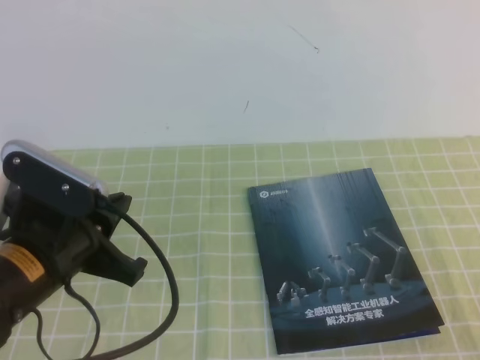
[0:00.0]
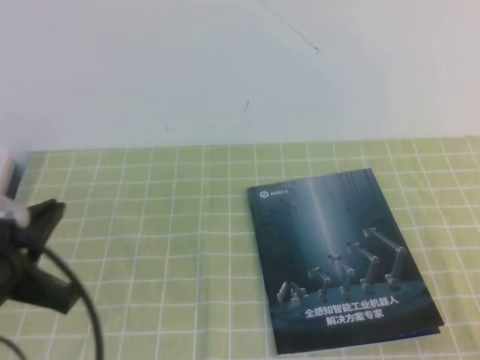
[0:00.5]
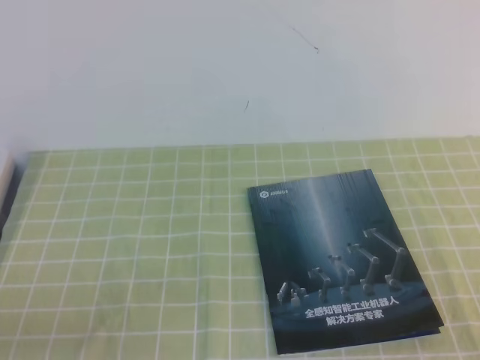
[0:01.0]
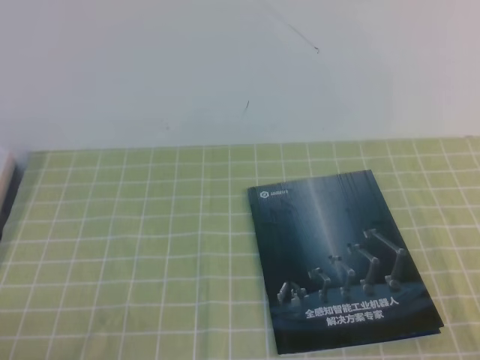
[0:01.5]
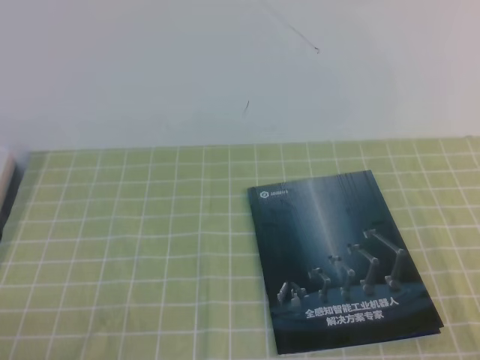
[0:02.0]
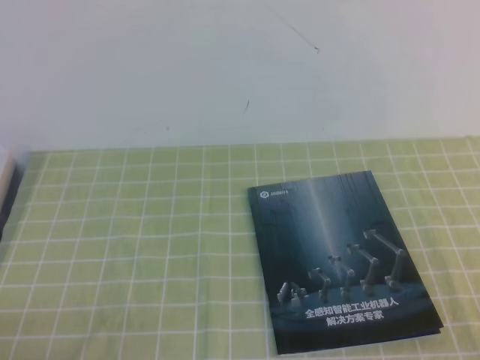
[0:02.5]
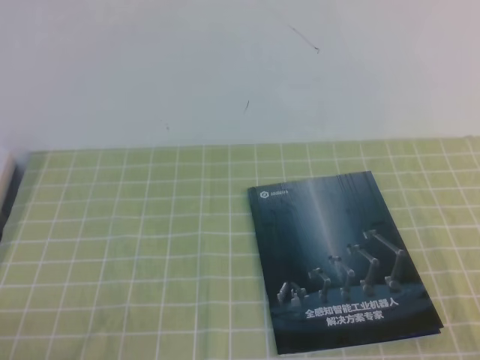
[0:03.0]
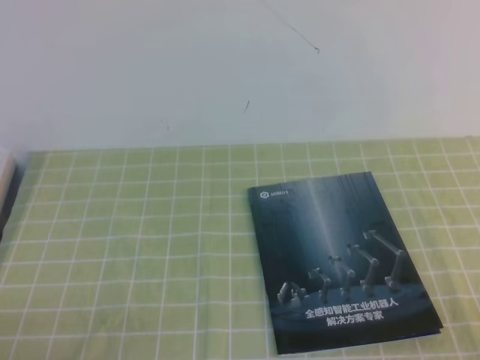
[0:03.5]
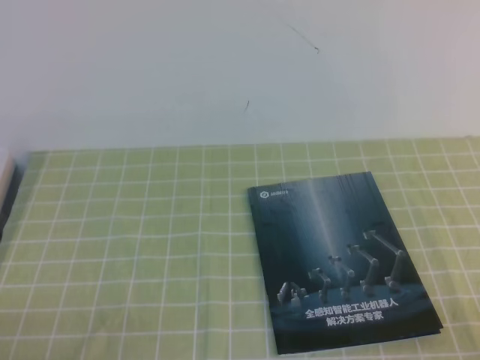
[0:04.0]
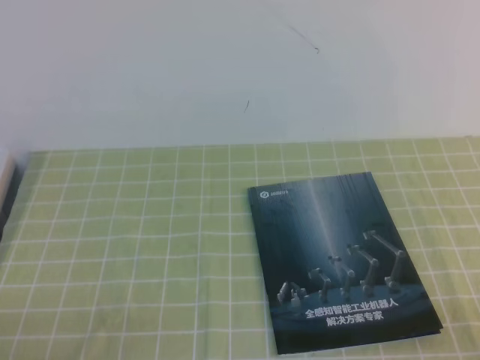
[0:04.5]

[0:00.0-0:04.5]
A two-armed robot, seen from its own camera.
Task of the whole recording: on the green tablecloth, hold the book with one hand and close it with the other.
Step, 0:00.0 to 0:04.5: Close the open book.
0:00.0 to 0:02.0: The left gripper travels backward, to the left and downward by about 20 cm.

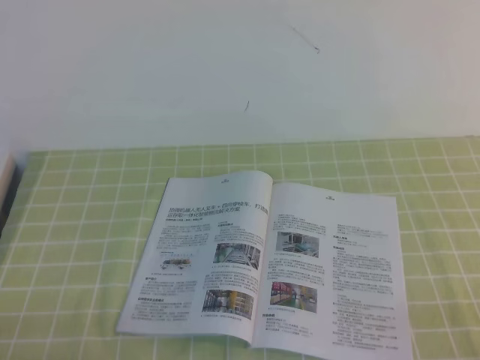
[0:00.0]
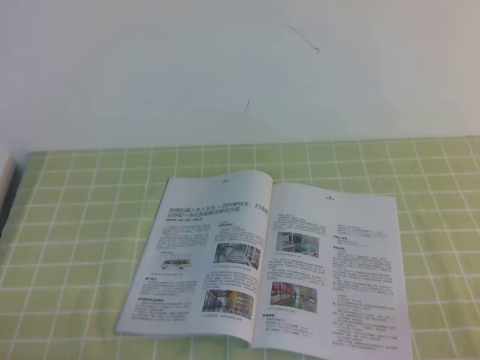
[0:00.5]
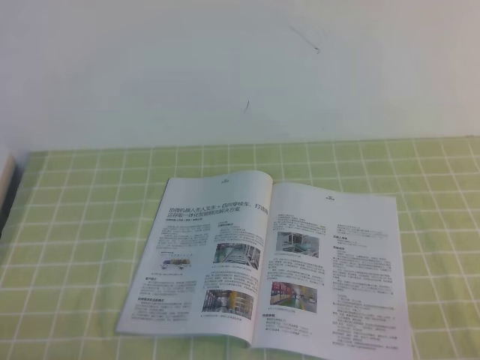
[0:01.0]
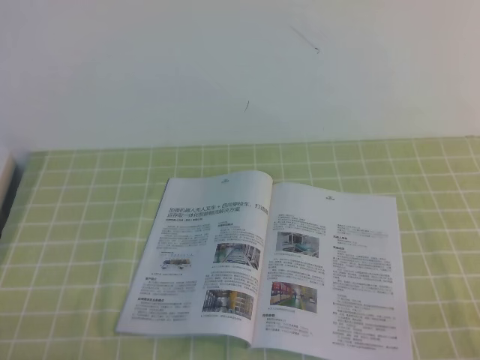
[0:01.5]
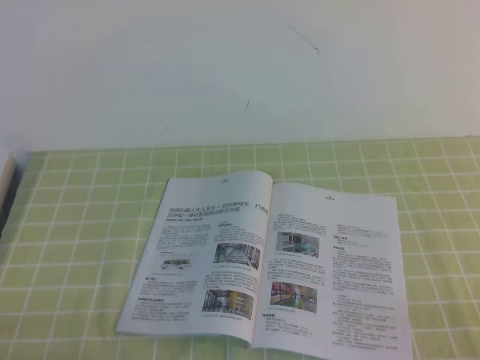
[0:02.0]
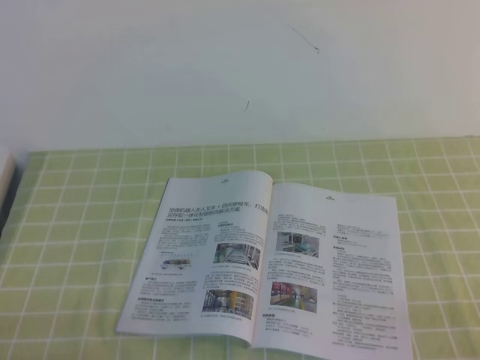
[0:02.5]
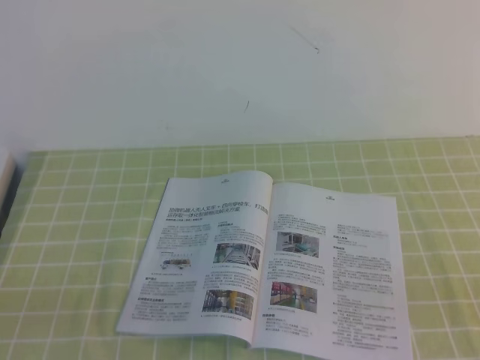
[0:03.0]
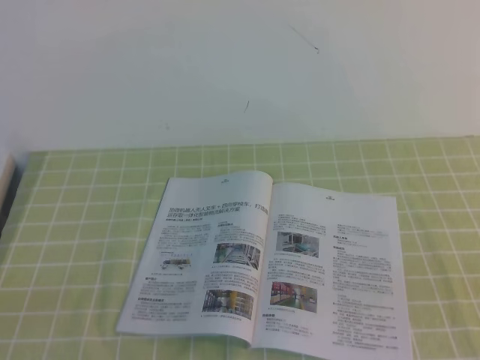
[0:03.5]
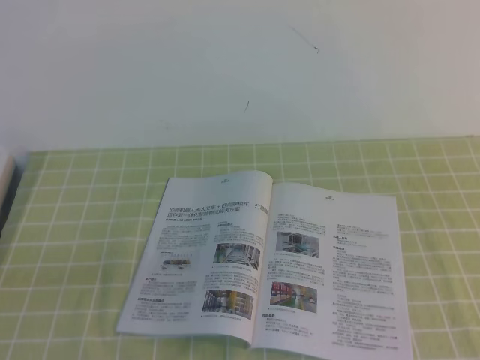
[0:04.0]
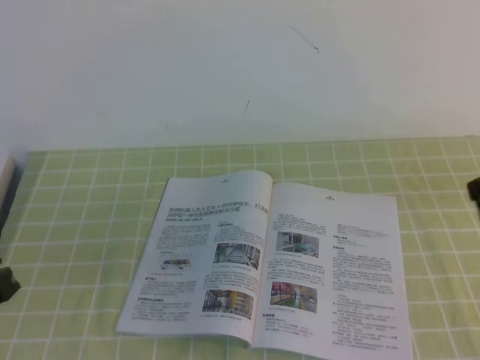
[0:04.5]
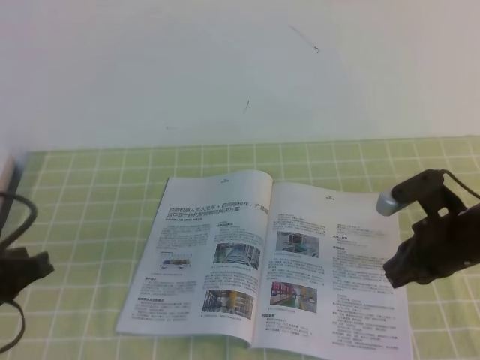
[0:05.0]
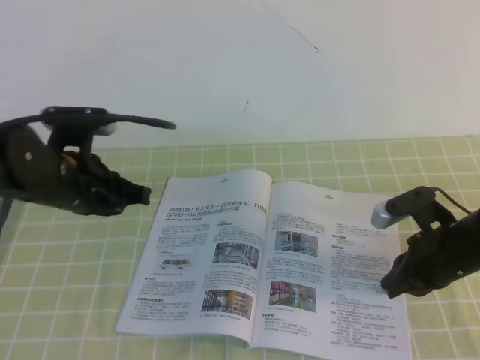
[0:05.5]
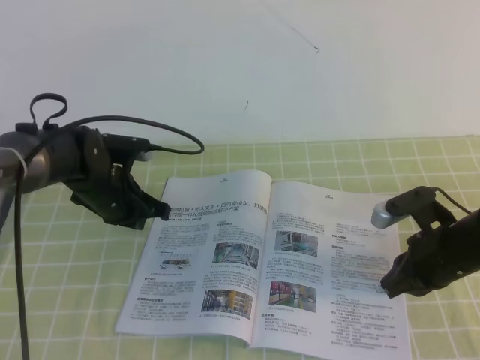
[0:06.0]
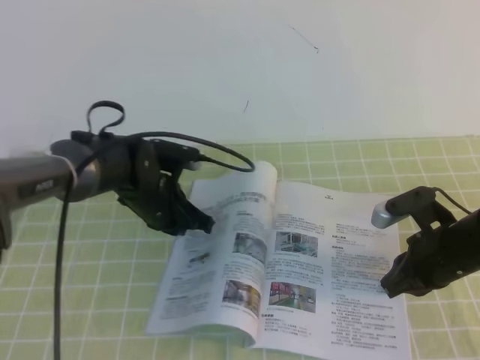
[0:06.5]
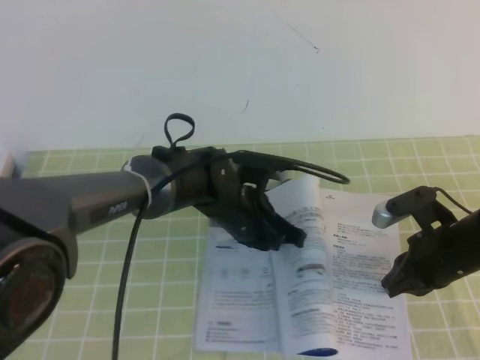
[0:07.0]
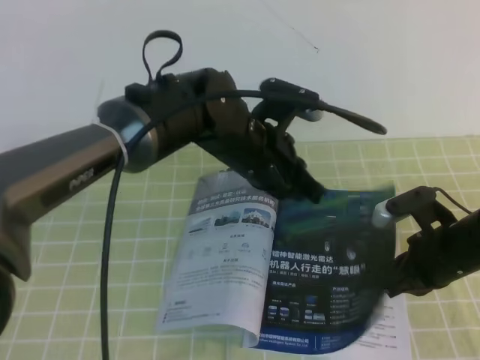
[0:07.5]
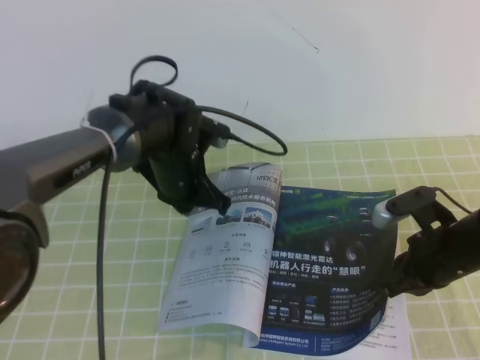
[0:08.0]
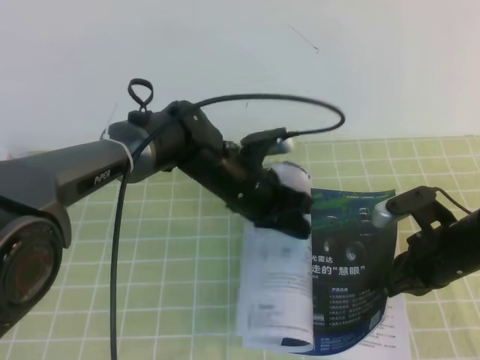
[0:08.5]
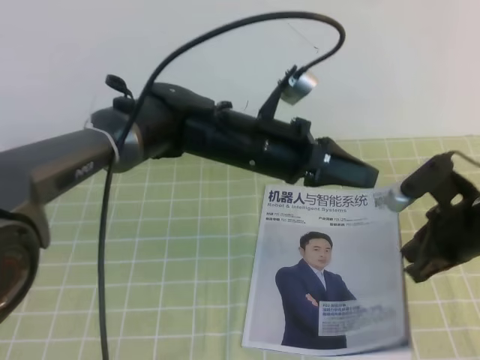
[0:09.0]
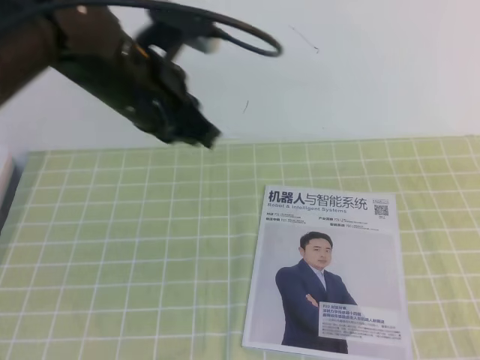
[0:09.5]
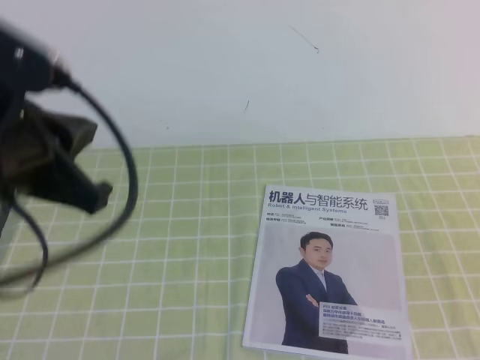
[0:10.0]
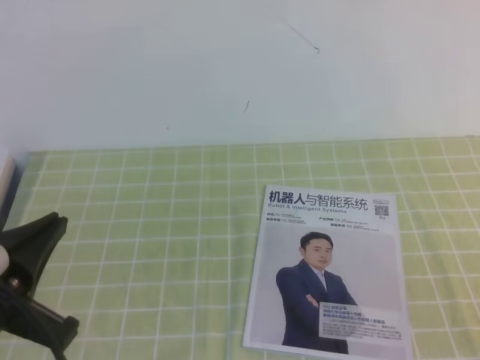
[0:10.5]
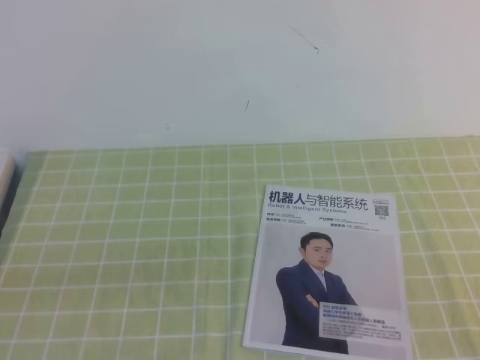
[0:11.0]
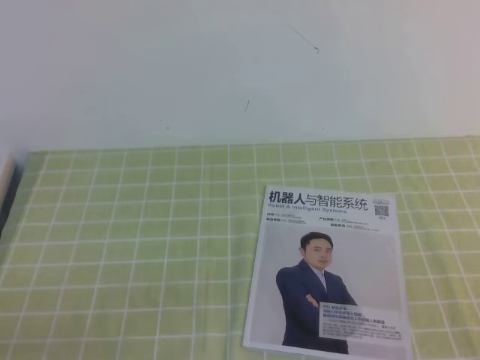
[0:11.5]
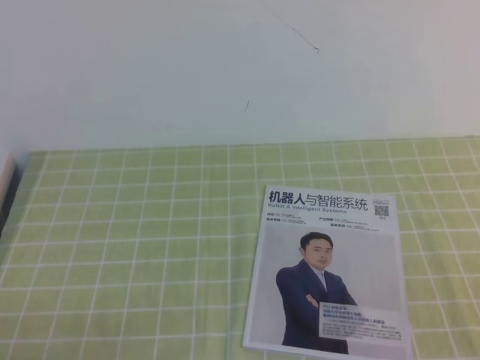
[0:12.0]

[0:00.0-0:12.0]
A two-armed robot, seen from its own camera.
Task of the whole recording: on the green tablecloth, hold the book with one hand and close it with the other.
0:00.0 to 0:02.0: Both grippers stay about where they are.
0:04.0 to 0:06.0: The right gripper is displaced downward and forward by approximately 30 cm, while the left gripper shifts some 35 cm forward.
0:06.0 to 0:08.0: The left gripper moves to the right, roughly 10 cm.
0:08.0 to 0:10.0: The right gripper heads backward and upward, covering roughly 25 cm. The left gripper moves backward, upward and to the left, about 25 cm.
0:10.0 to 0:12.0: The left gripper shifts approximately 30 cm downward, backward and to the left. The right gripper heads downward and backward, covering roughly 10 cm.

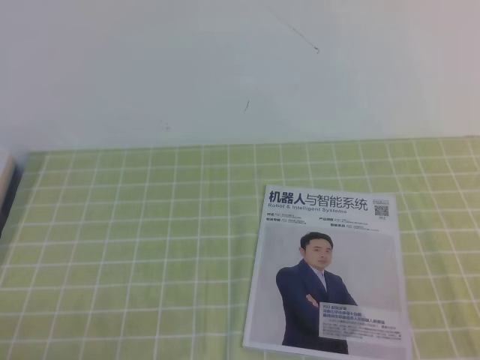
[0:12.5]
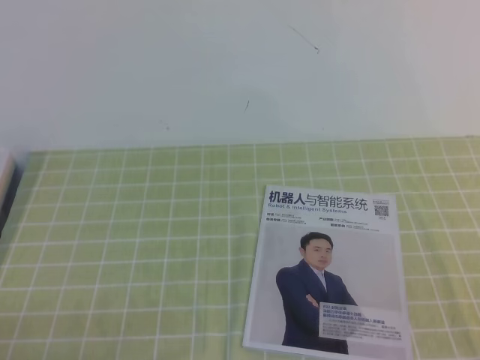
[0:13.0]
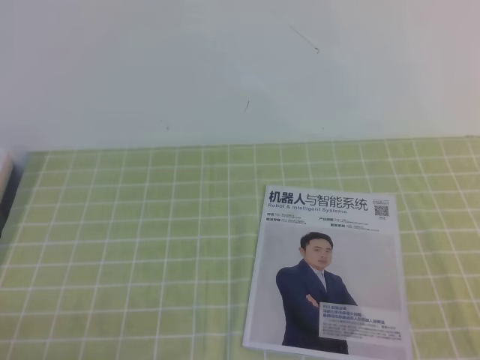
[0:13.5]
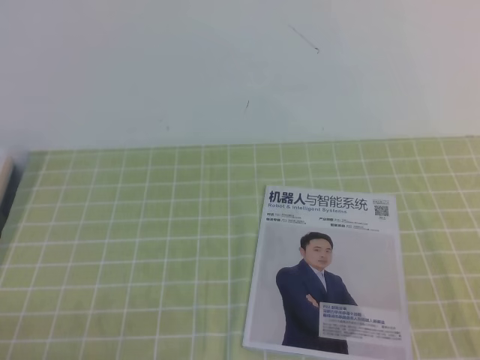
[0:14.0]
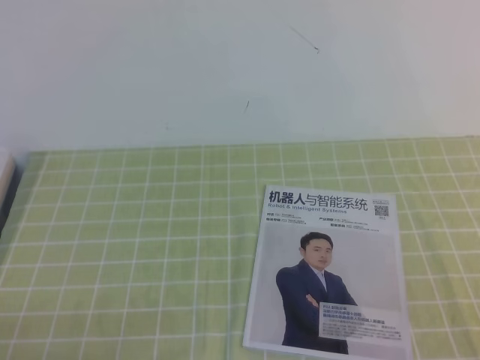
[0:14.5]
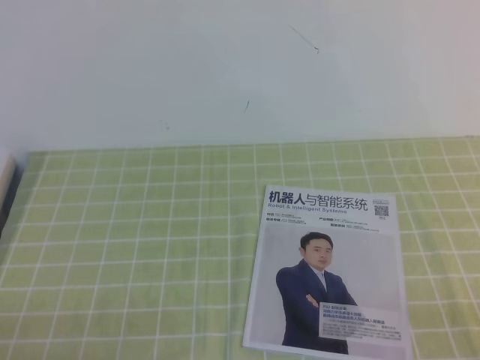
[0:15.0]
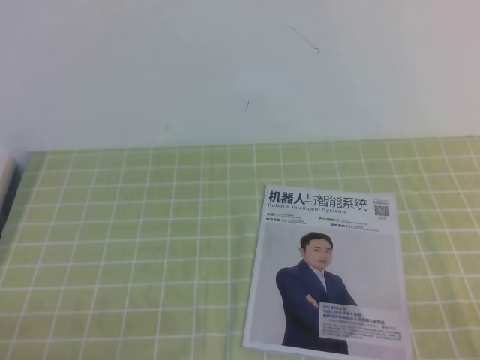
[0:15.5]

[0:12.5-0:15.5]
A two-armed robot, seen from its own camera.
Task of the whole recording: on the green tablecloth, hold the book with one hand and close it with the other.
0:12.5 to 0:14.0: Neither gripper changes place.
